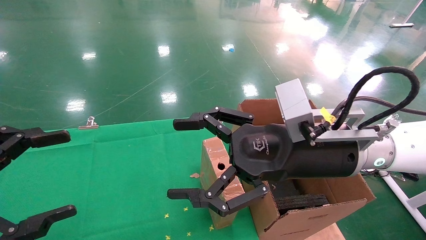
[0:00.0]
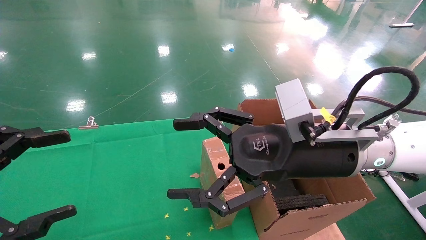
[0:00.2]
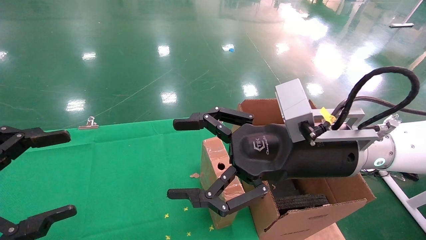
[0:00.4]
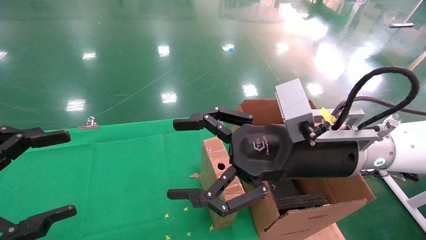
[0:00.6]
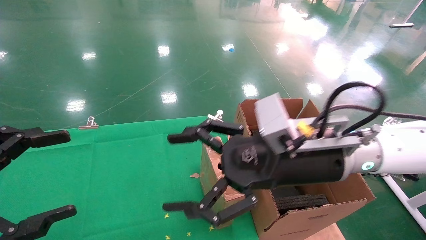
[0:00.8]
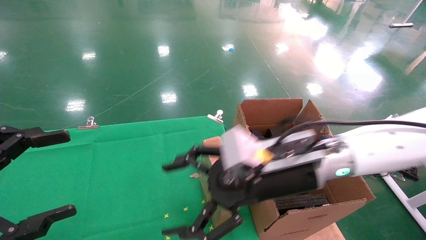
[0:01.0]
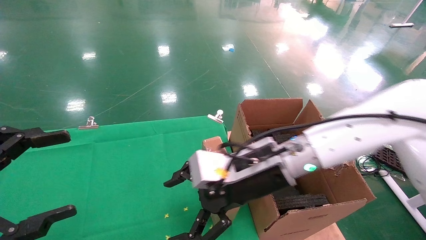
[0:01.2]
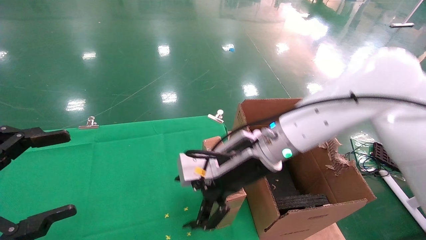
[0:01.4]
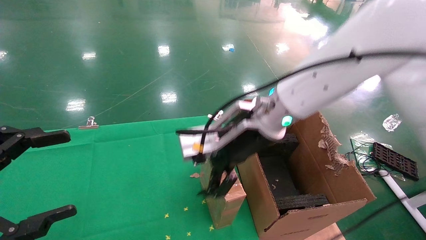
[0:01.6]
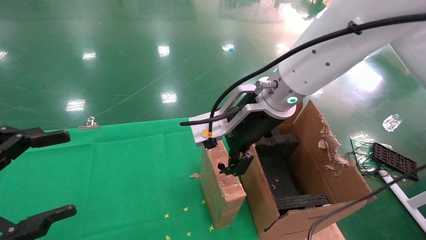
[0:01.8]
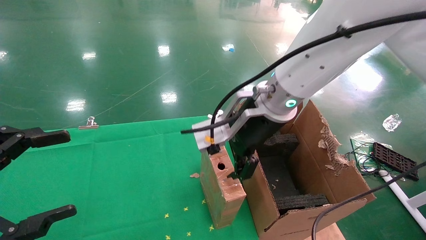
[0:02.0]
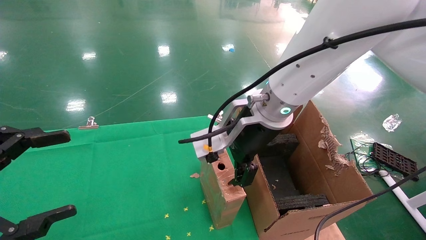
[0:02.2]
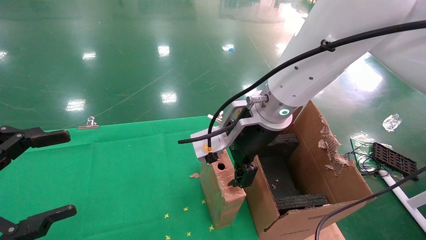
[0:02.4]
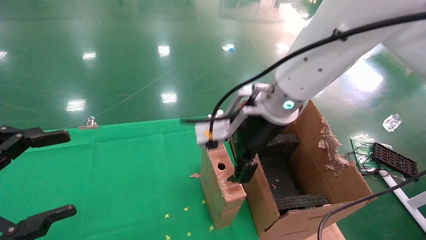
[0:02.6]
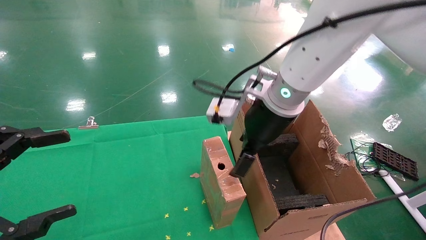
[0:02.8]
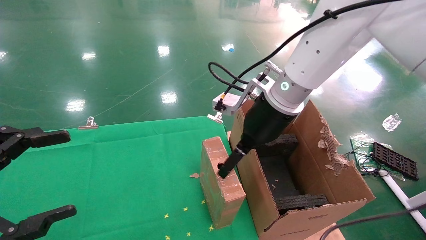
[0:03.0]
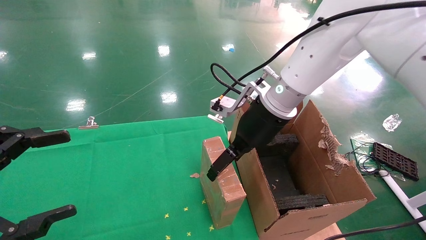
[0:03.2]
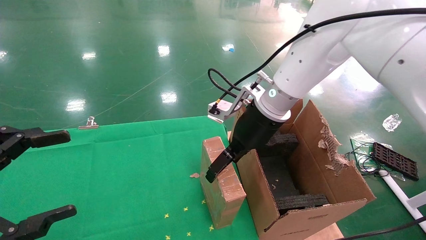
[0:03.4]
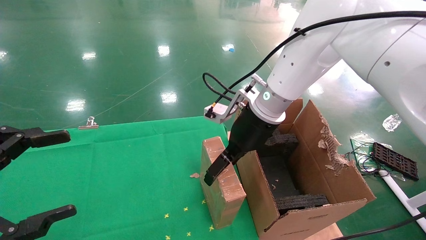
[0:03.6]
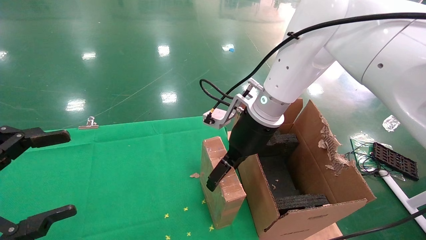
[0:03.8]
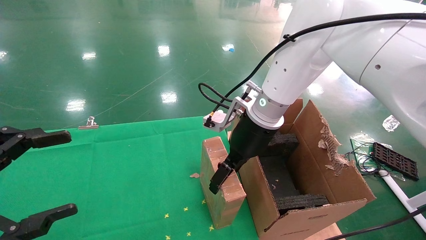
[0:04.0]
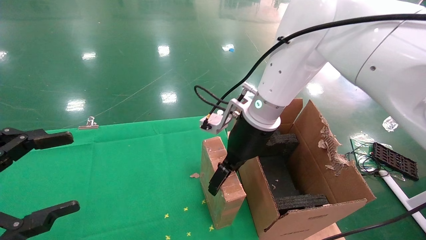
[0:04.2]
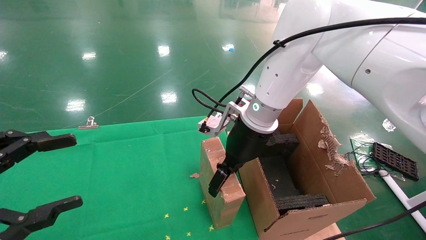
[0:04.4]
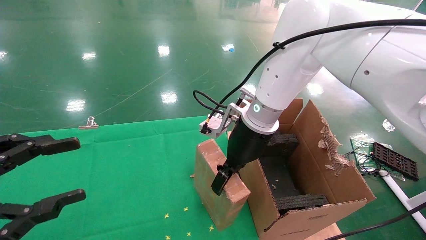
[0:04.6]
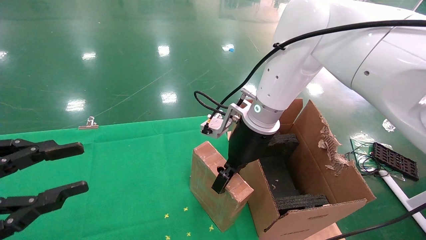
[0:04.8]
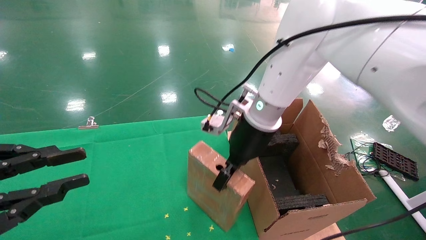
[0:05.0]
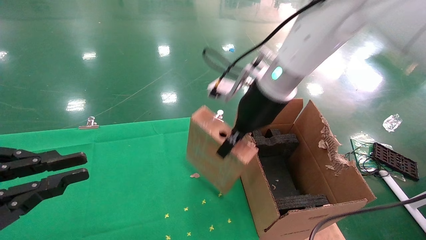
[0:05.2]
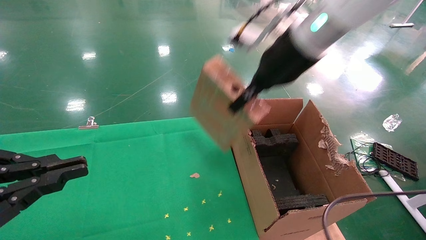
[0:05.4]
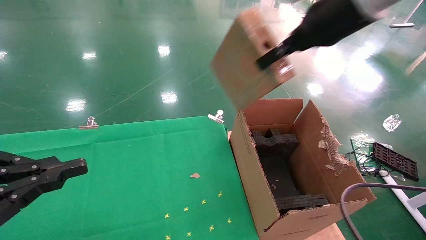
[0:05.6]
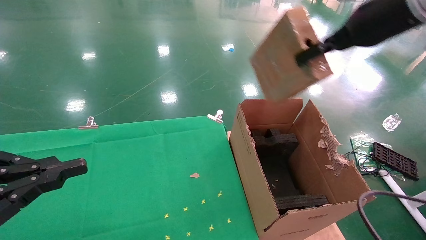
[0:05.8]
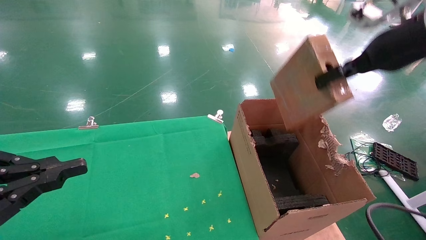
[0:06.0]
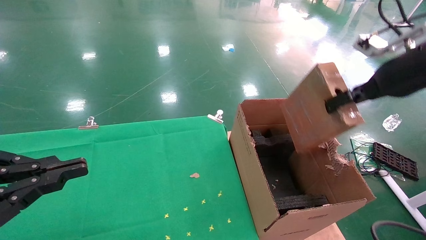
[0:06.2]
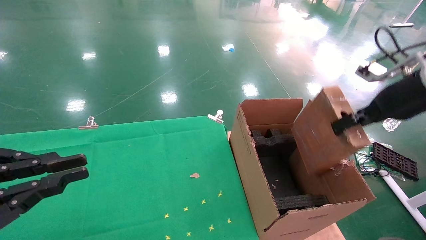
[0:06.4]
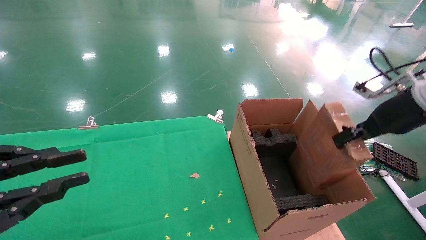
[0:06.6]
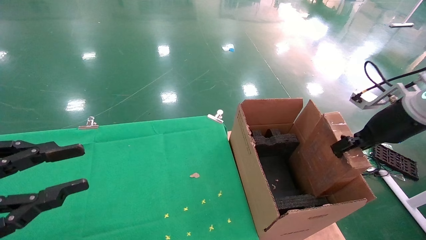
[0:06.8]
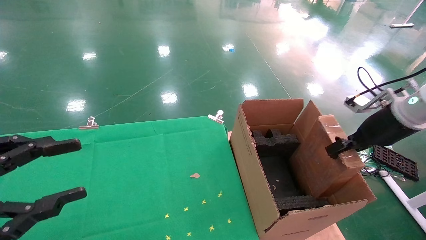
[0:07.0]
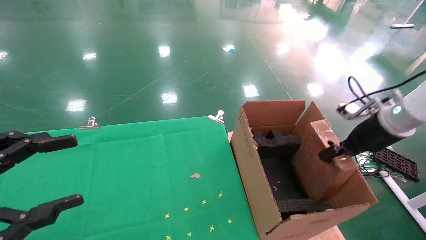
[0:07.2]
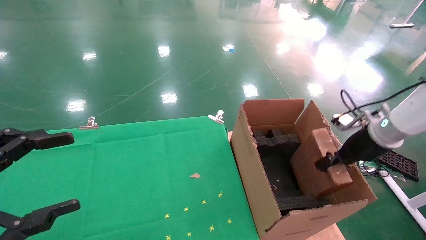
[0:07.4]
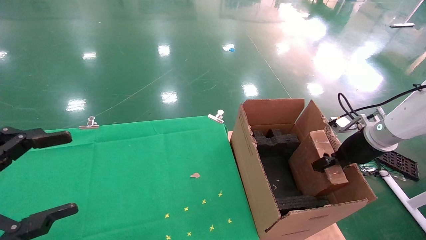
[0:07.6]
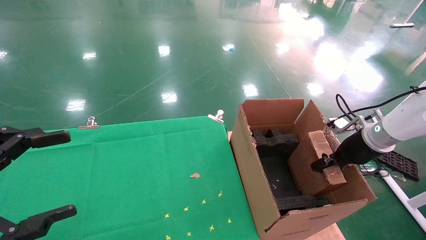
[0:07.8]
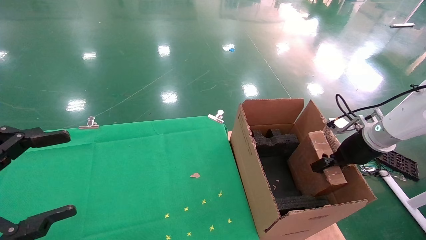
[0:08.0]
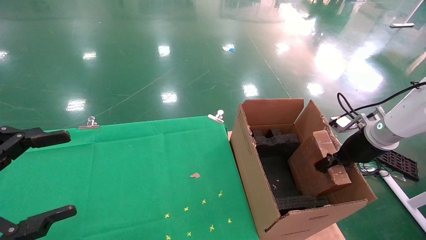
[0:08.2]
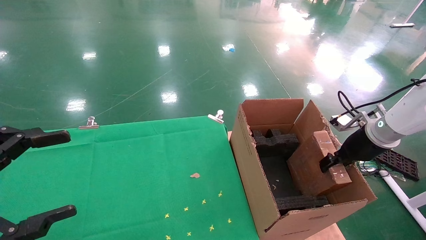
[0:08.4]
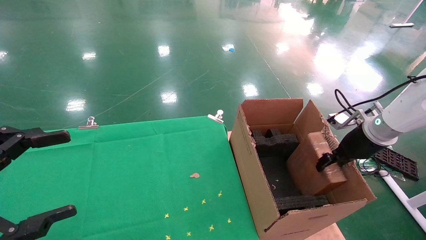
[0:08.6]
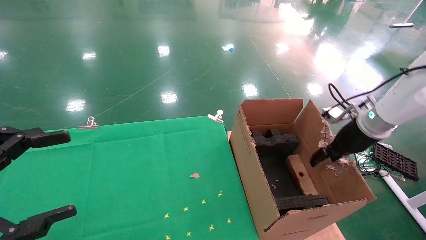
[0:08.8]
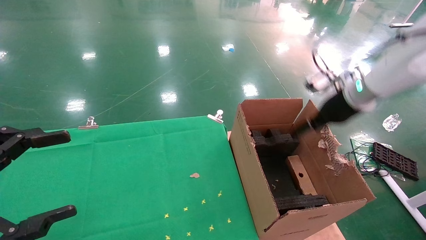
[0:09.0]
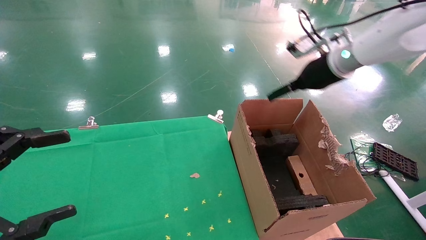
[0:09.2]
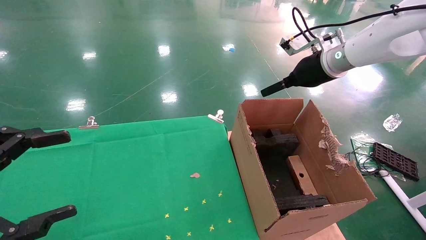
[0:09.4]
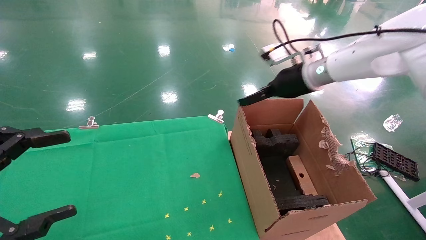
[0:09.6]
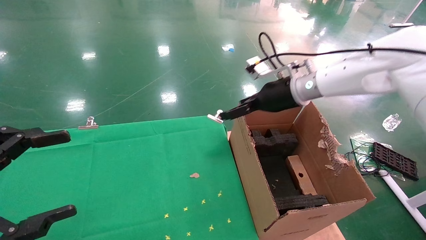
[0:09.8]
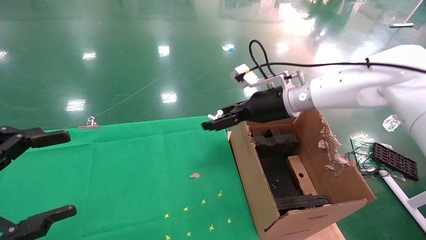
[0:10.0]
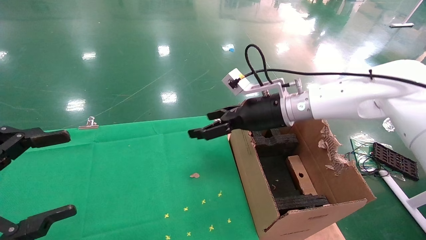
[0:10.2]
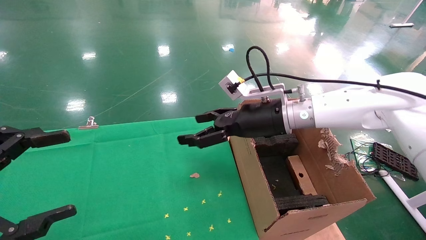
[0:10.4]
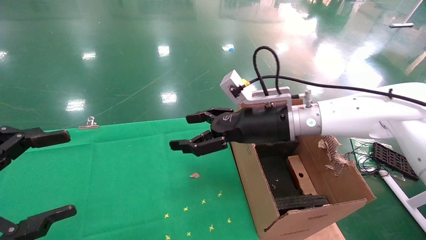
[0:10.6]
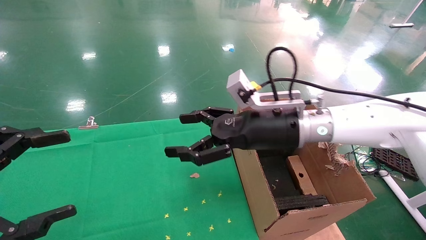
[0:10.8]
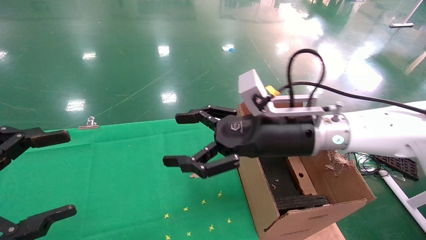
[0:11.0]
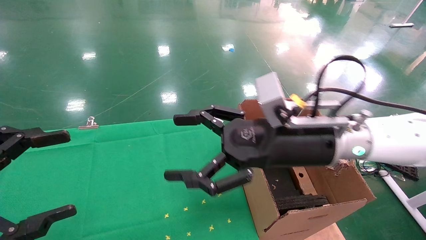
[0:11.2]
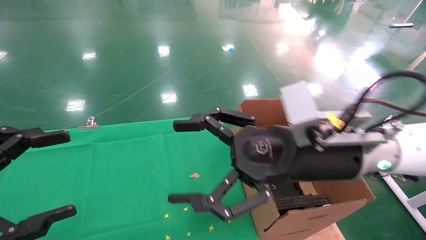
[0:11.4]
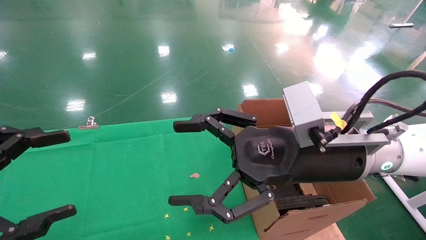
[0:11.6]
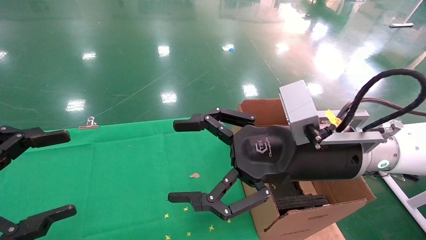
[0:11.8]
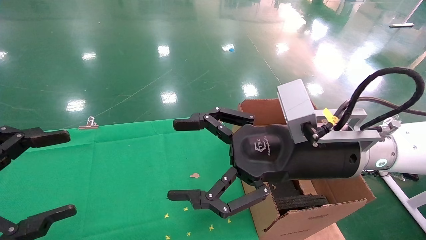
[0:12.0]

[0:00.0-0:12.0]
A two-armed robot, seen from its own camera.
Task of the whole recording: using a robotic arm to pick up a cardboard box and palace it the carton.
Step, 0:00.8 to 0:04.6: Pick up the mouse and the power cord paper box.
Step, 0:04.8 to 0:08.8: Place the mouse and the power cord paper box into the container.
0:00.0 to 0:01.6: The right gripper travels forward and to the left by about 10 cm.
0:01.6 to 0:03.0: The right gripper moves approximately 5 cm.
0:03.0 to 0:04.4: The right gripper ends up roughly 5 cm from where it was.
0:04.4 to 0:06.0: The right gripper moves to the right and upward, some 30 cm, and closes its fingers, while the left gripper closes its fingers.
0:06.0 to 0:07.6: The right gripper is displaced downward by approximately 20 cm; the left gripper opens.
0:07.6 to 0:09.0: The right gripper goes about 10 cm upward and to the left, and opens up.
0:09.0 to 0:10.4: The right gripper goes some 20 cm to the left, and opens up.
0:10.4 to 0:12.0: The right gripper shifts some 15 cm backward.

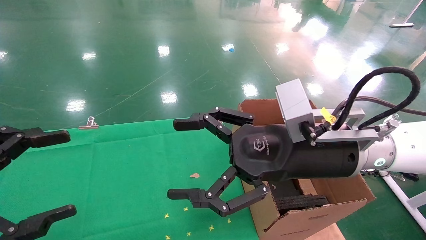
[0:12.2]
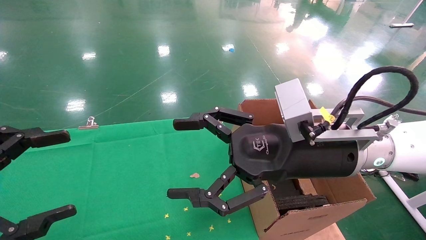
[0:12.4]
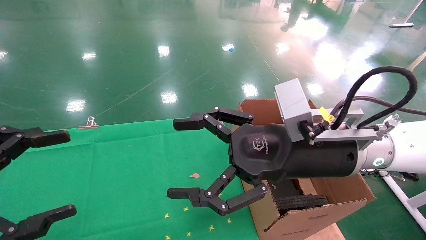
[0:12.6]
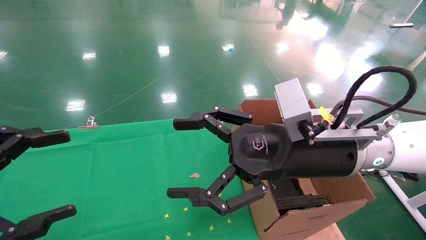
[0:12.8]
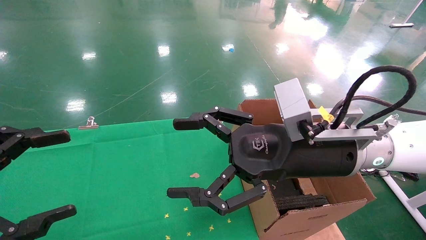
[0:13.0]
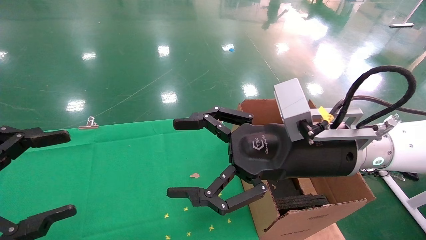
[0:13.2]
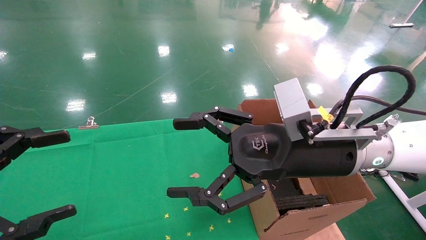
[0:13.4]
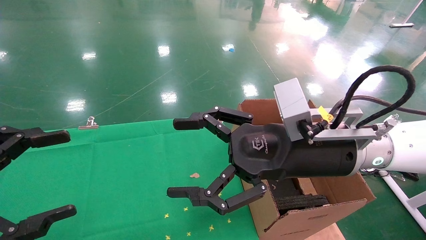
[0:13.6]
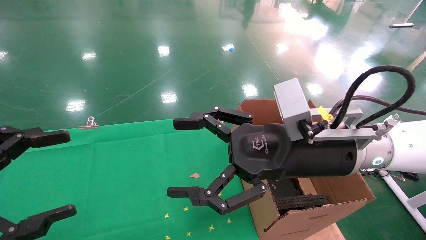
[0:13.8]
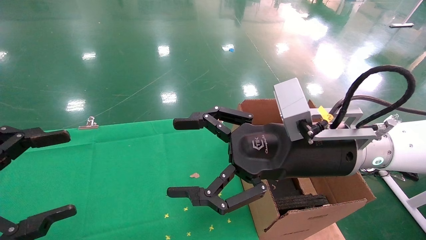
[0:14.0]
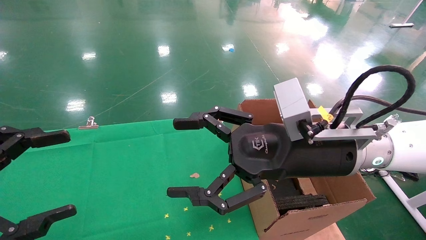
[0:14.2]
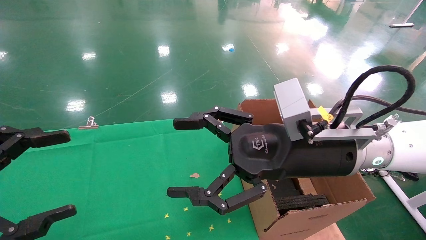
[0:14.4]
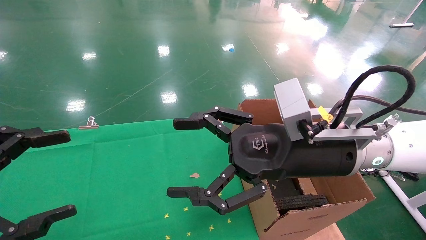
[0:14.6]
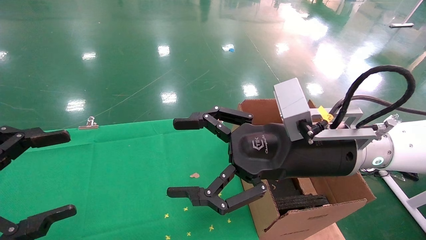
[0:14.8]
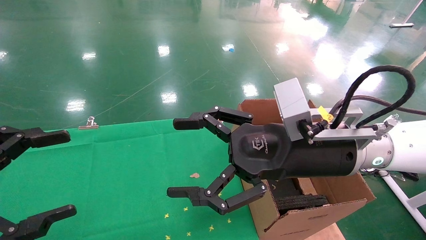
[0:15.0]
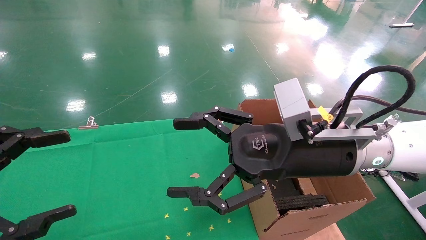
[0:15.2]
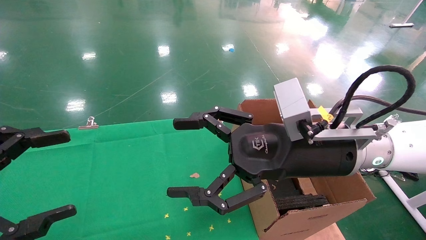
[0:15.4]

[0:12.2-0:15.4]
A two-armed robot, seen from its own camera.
Task of the whole recording: using a robotic arm to pick up a cardboard box and palace it the carton.
0:12.2 to 0:15.4: Both grippers stay about where they are.
